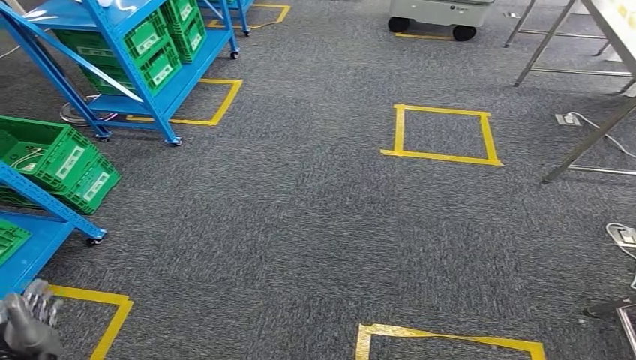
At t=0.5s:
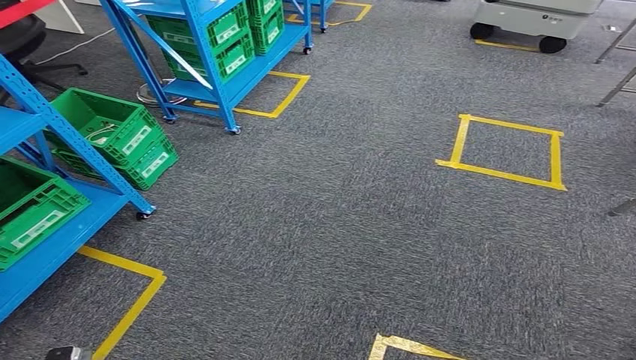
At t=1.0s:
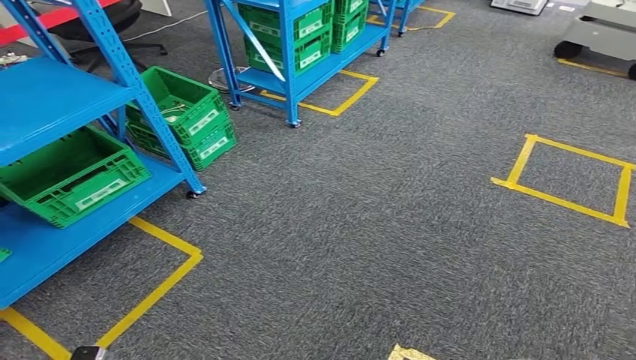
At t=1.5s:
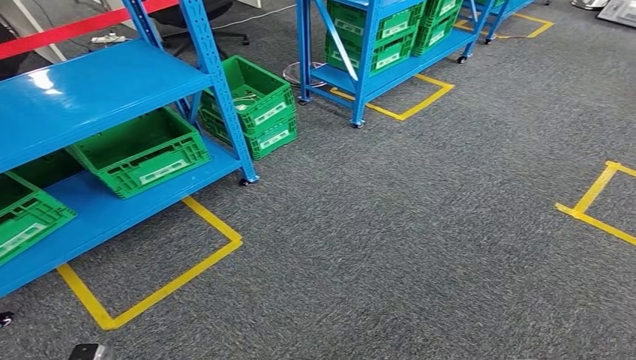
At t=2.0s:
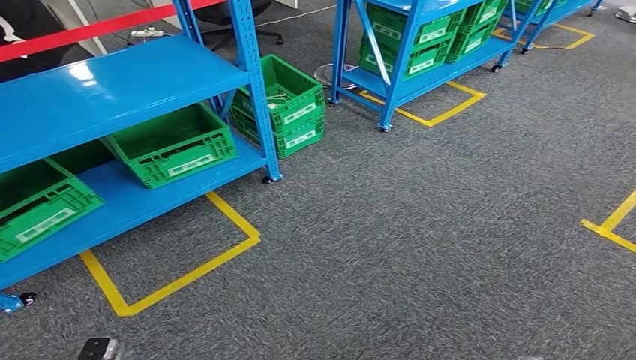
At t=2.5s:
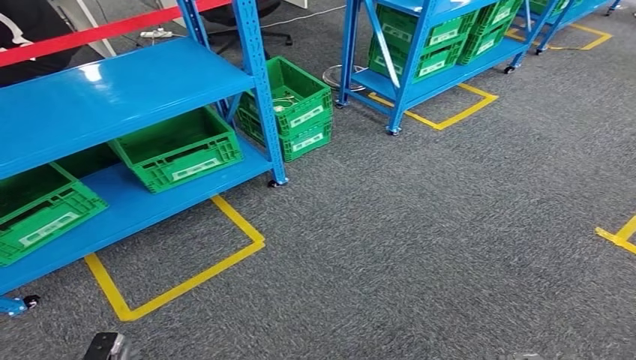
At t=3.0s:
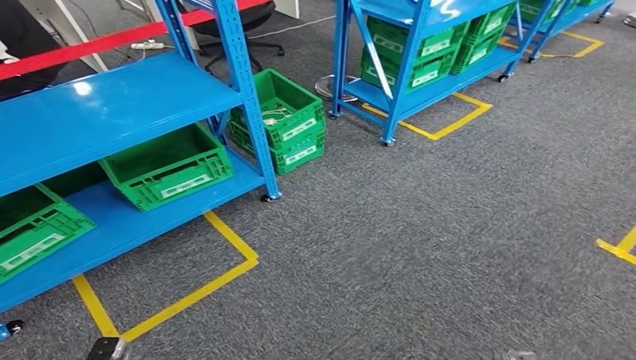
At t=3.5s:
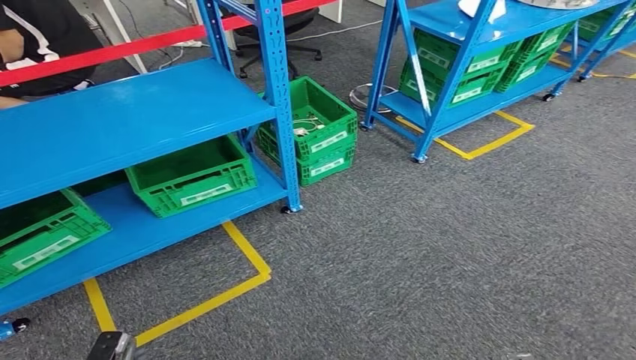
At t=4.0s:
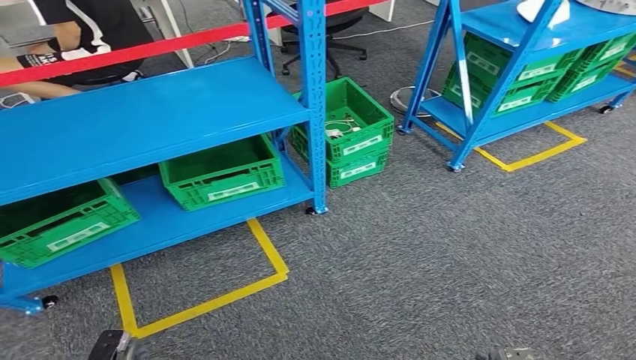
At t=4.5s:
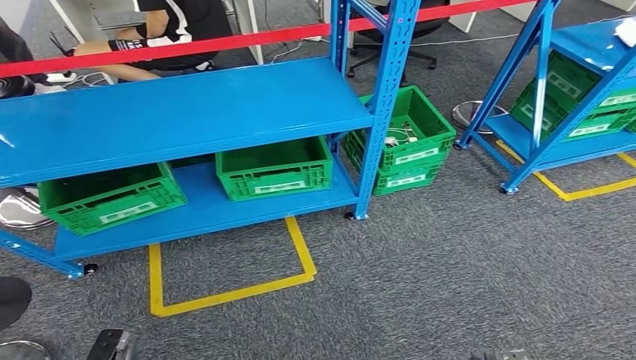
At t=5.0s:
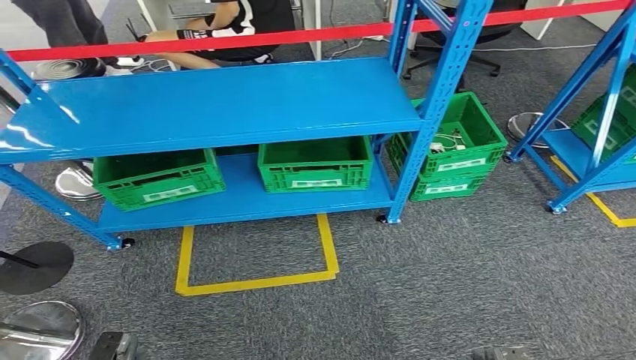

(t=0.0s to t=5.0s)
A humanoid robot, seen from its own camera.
Step, t=0.0s - t=5.0s: Return to the initial position at the workbench.
